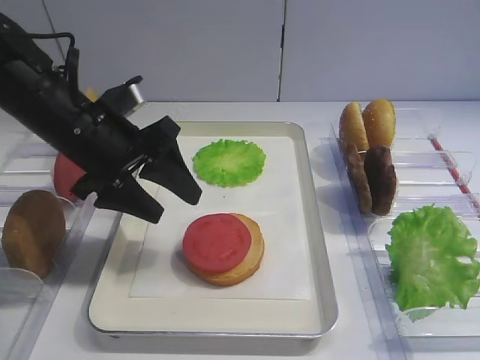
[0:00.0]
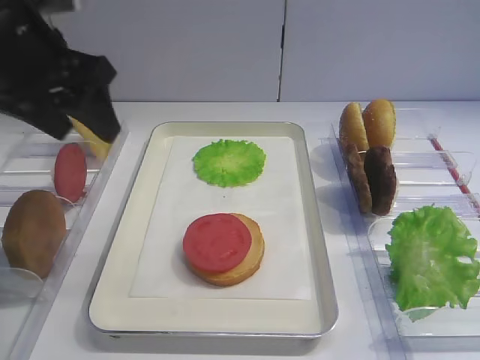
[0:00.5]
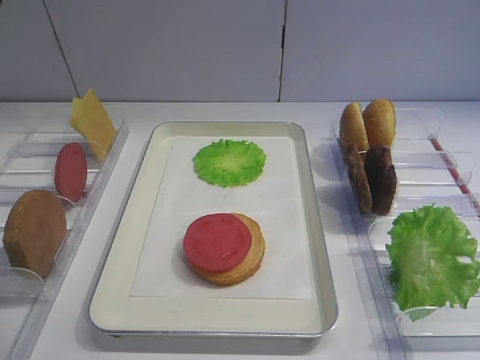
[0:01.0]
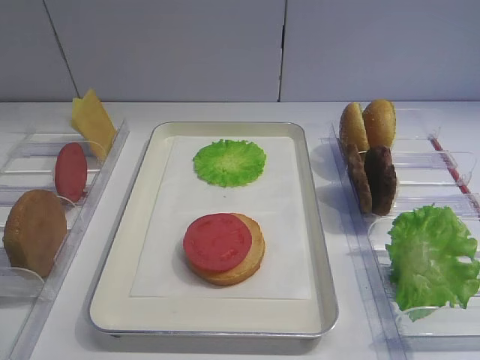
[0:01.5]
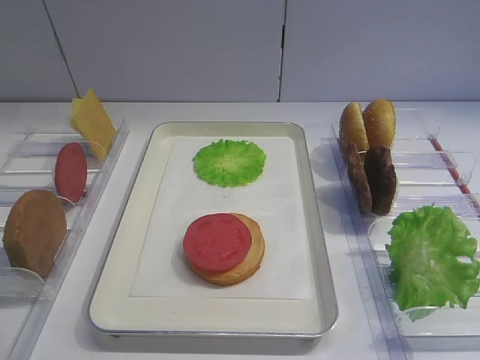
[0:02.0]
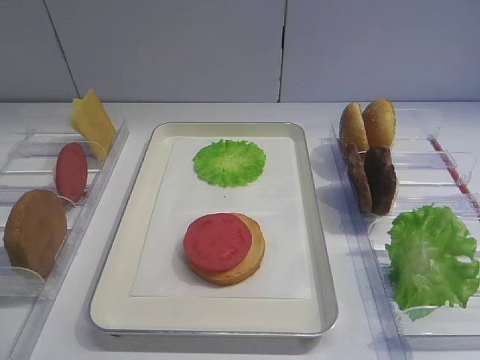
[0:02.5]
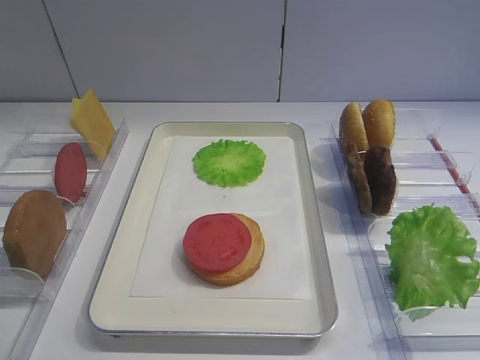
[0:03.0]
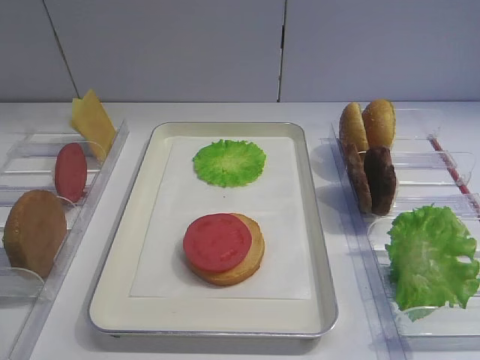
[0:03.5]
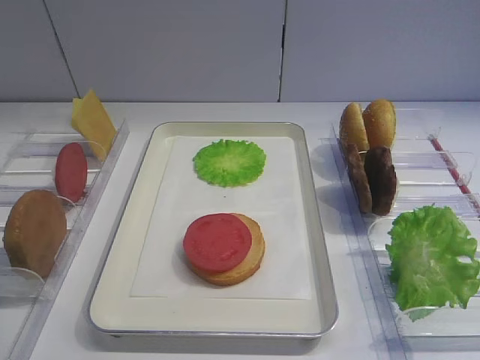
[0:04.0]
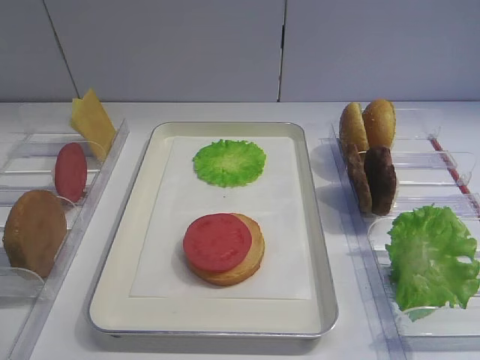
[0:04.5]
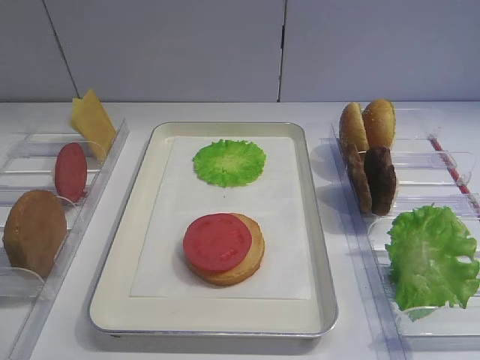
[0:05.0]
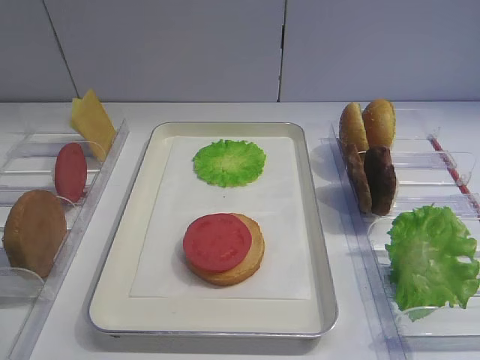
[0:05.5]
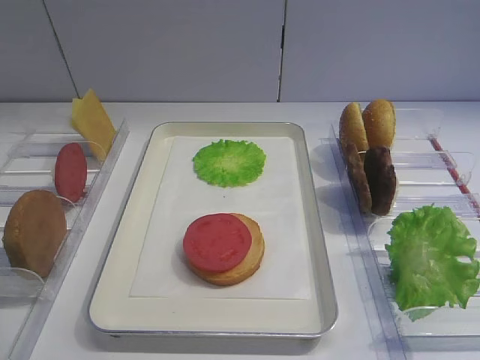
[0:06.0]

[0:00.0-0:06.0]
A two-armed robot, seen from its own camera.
0:00.0 to 0:02.0: The left gripper moves backward, upward and to the left, some 35 cm.

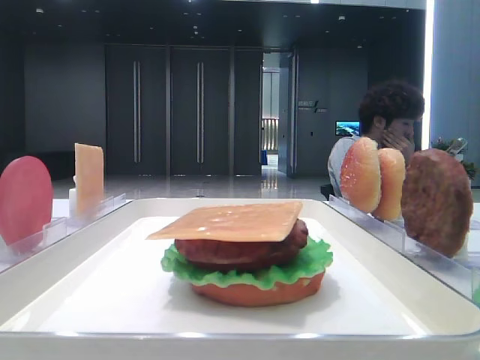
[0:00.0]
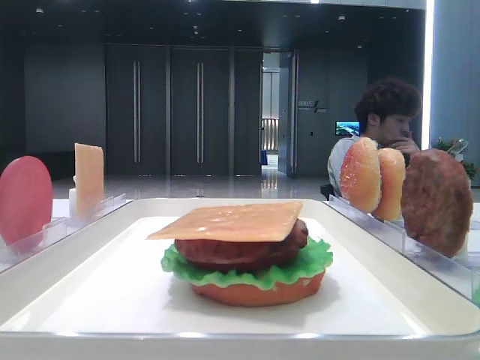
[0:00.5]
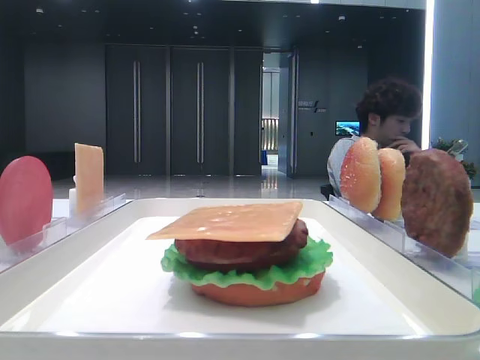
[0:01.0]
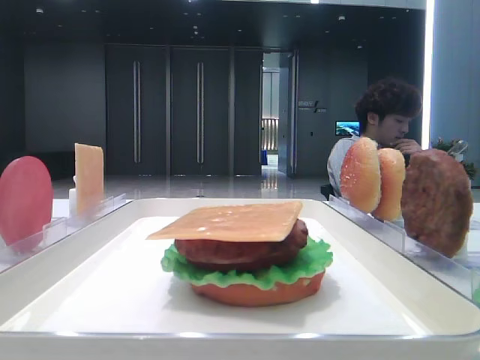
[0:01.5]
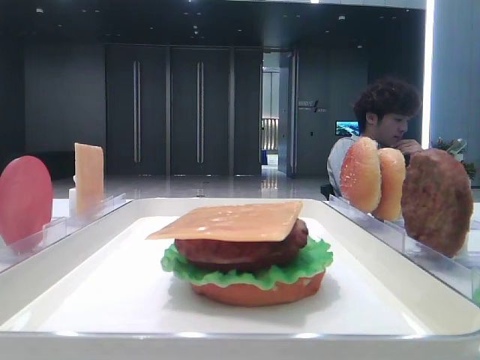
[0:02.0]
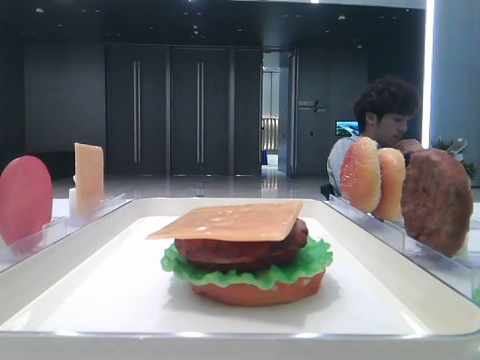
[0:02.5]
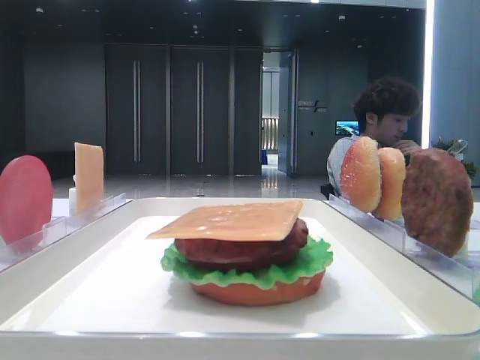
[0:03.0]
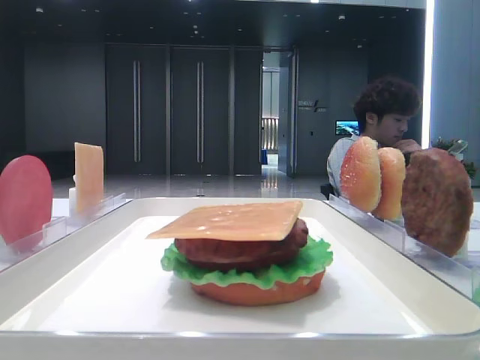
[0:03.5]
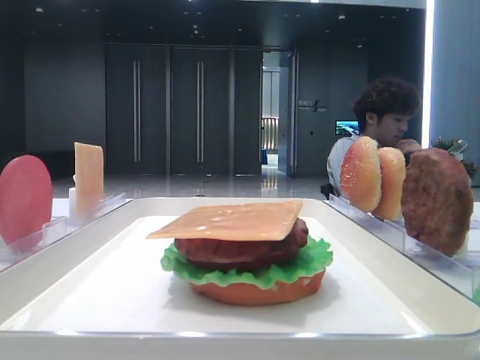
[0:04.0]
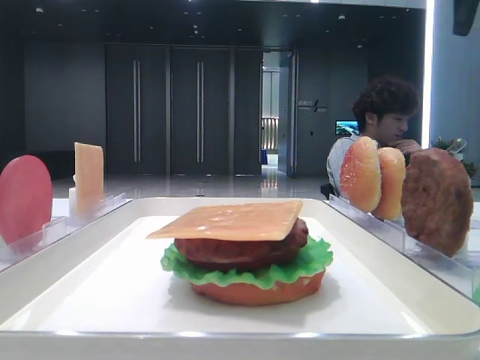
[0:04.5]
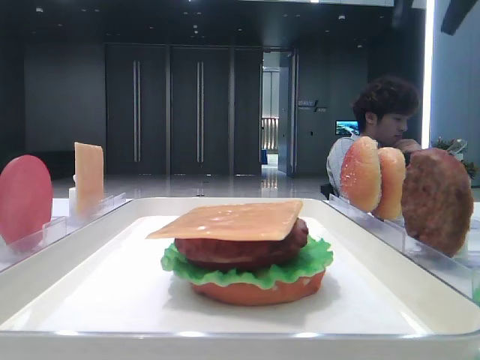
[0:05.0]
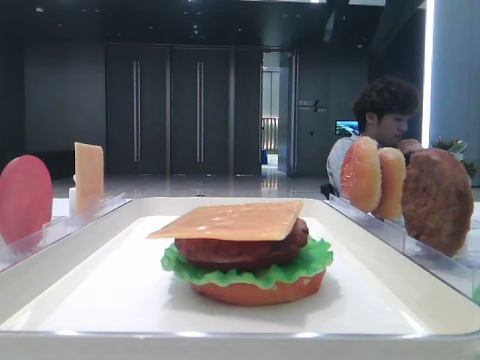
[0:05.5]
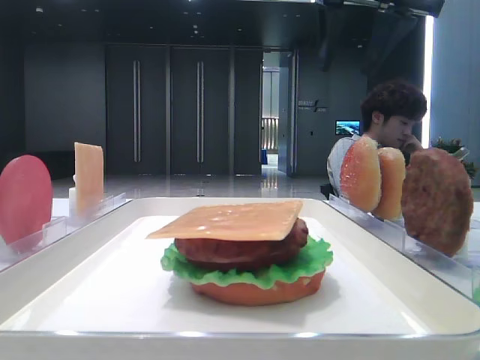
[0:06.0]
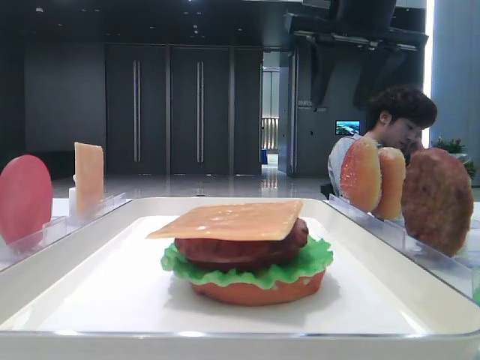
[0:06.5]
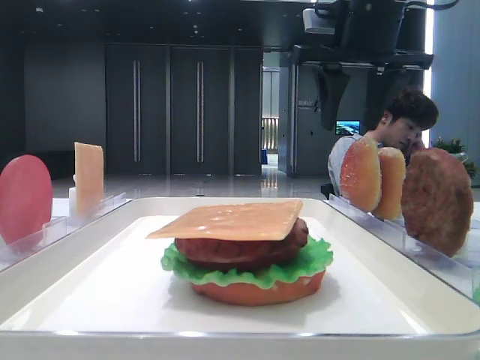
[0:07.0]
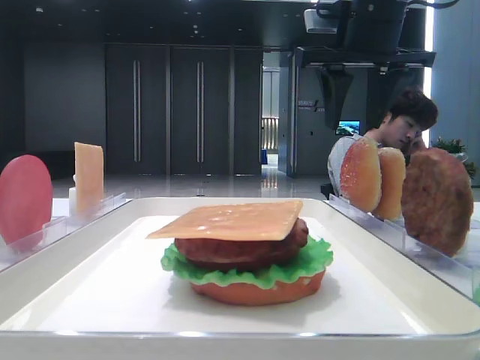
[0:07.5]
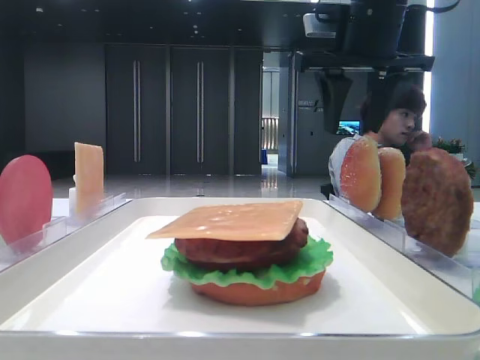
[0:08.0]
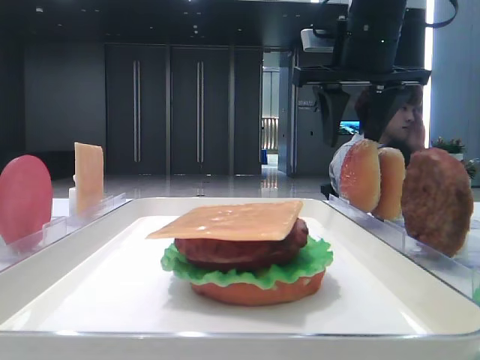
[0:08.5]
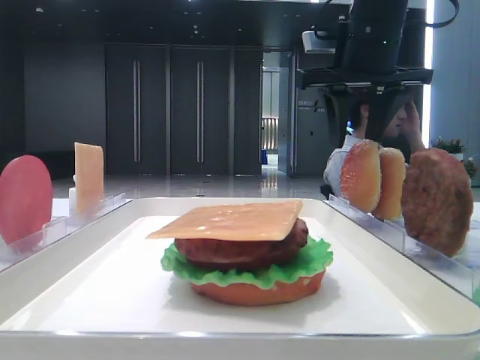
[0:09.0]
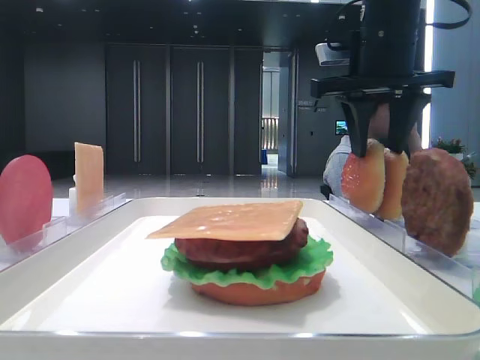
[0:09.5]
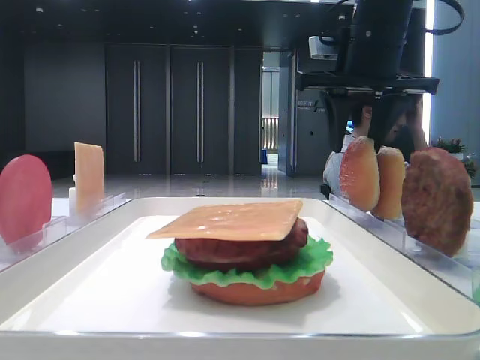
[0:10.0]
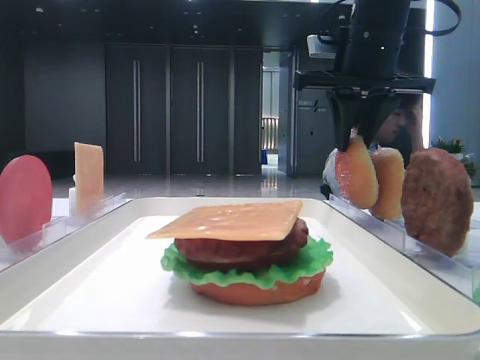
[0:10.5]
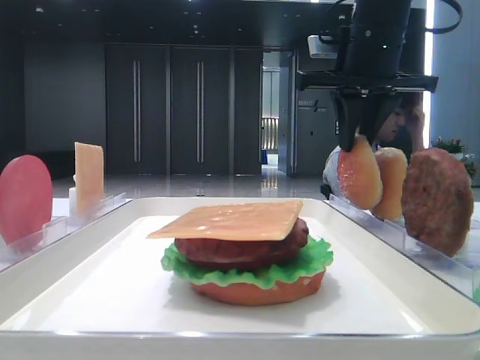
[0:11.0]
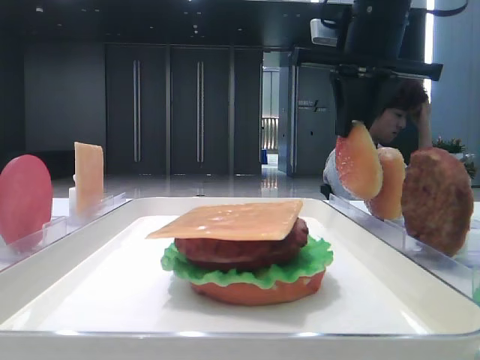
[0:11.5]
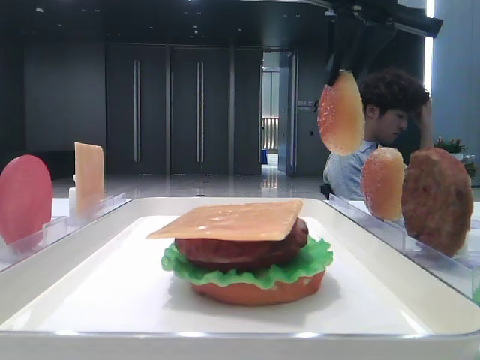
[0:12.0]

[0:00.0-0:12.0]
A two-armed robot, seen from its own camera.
Step, 0:00.0 to 0:11.0: Pick up the top bread slice with the right hand.
0:04.0 to 0:06.0: The right gripper is displaced to the left by approximately 15 cm.
0:06.0 to 0:08.0: The right gripper moves downward, some 5 cm.
0:08.0 to 0:10.0: The grippers move only a little.
0:10.0 to 0:12.0: The right gripper shifts some 5 cm upward, and closes its fingers.

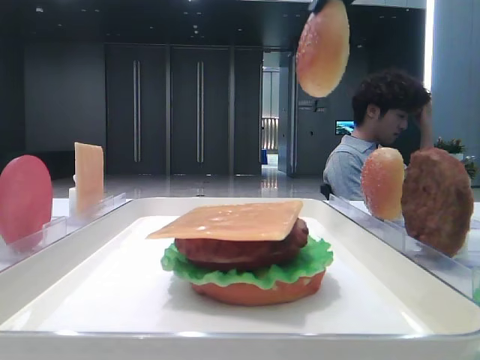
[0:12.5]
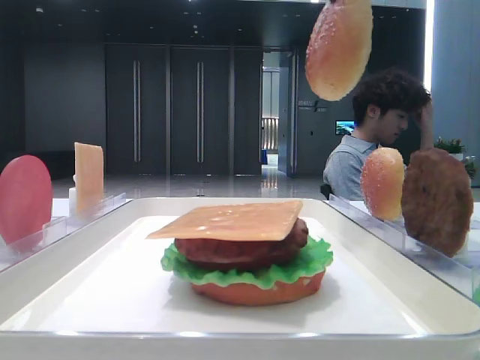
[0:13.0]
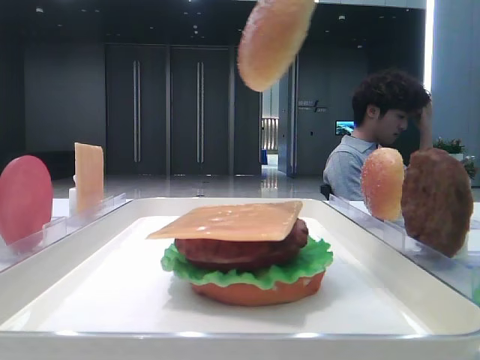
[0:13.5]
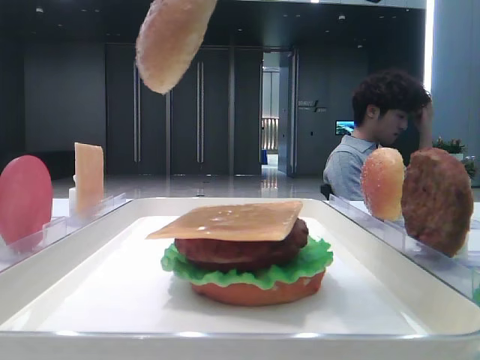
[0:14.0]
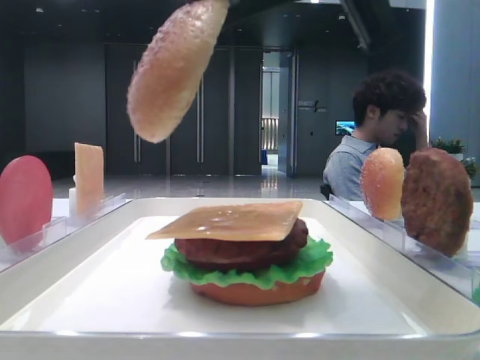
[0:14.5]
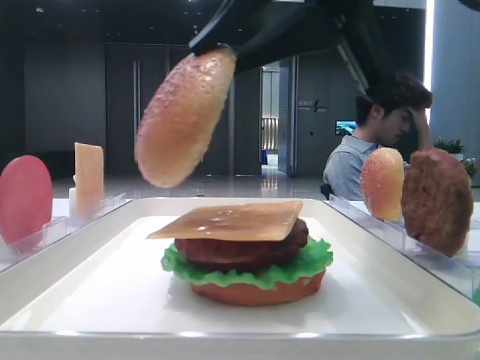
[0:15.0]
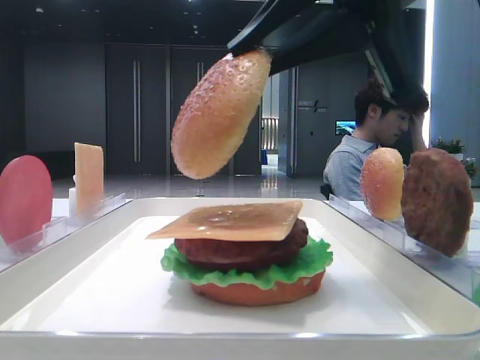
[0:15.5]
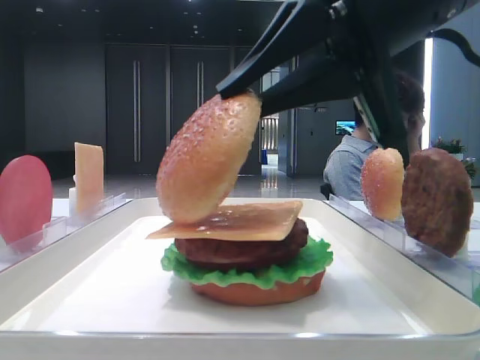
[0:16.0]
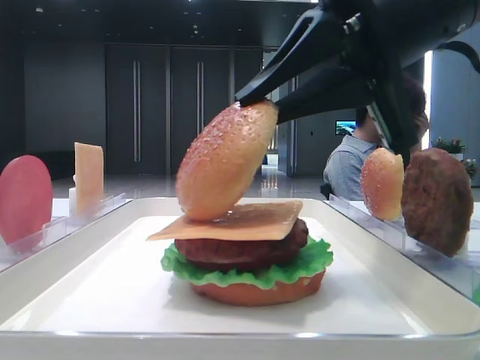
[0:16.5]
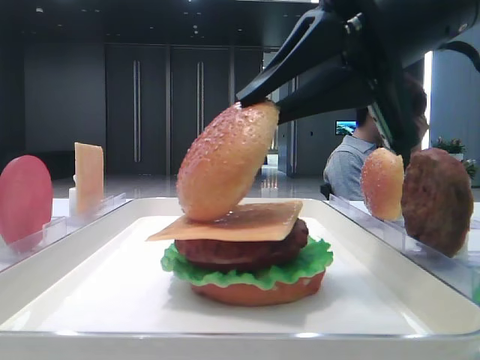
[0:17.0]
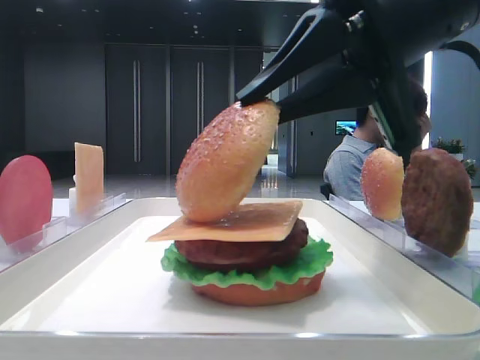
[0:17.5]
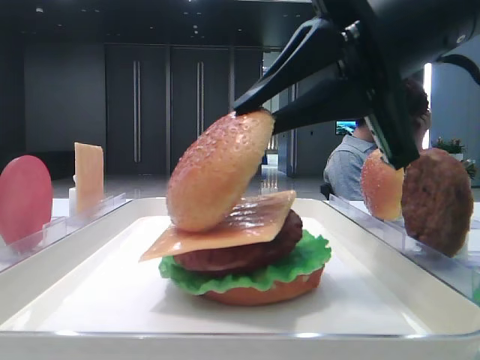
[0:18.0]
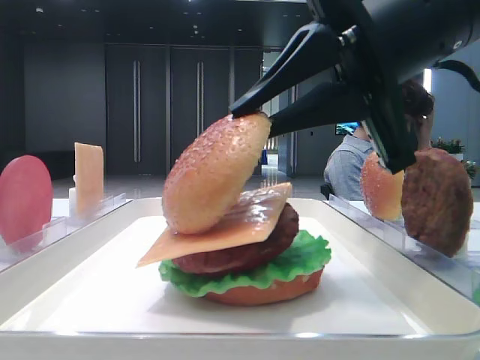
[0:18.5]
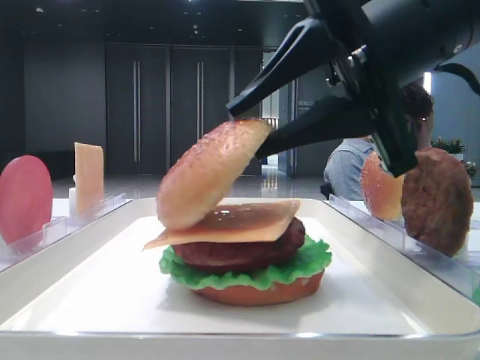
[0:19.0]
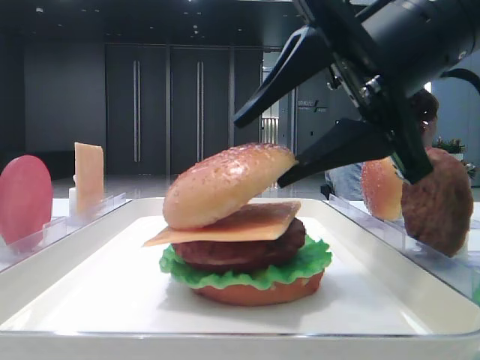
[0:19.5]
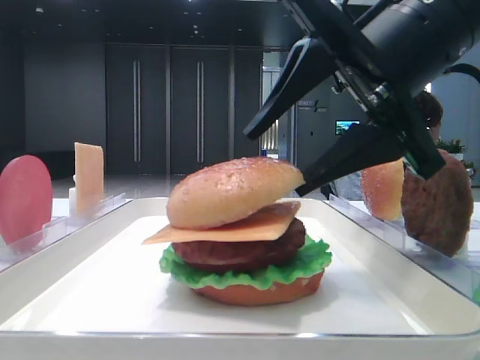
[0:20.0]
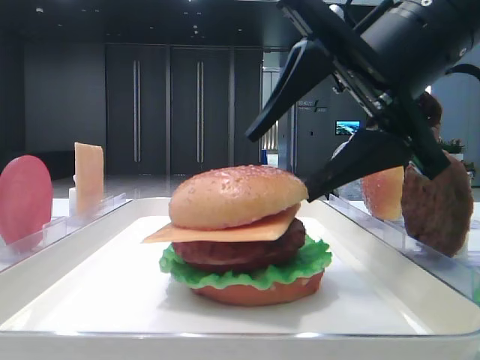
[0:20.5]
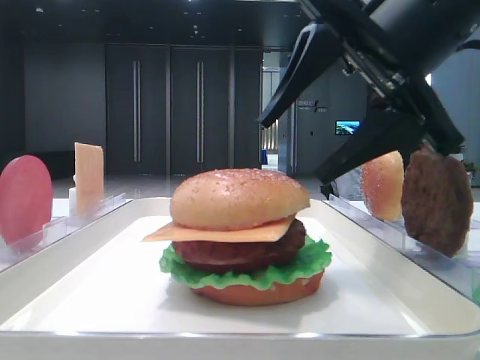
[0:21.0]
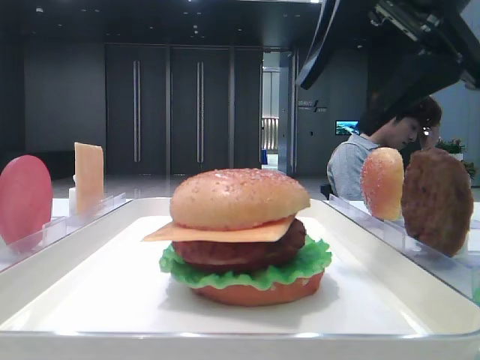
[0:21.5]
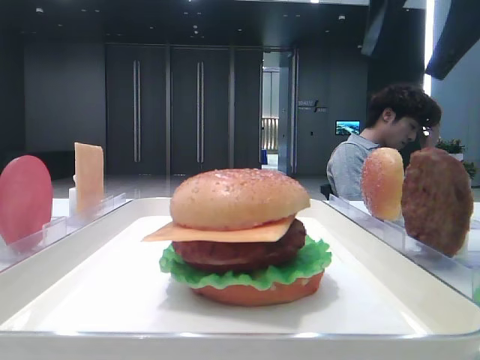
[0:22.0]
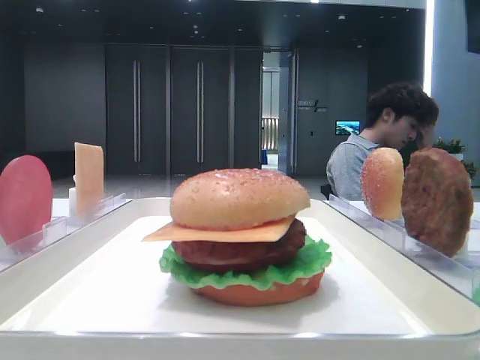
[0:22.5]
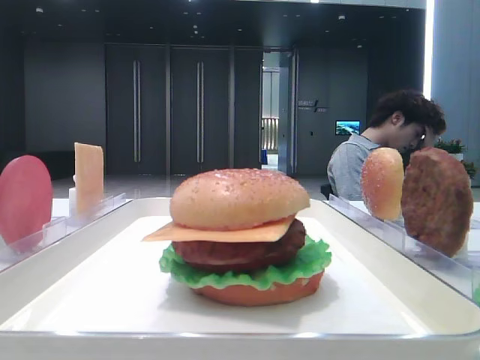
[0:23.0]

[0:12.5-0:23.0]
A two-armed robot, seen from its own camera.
Step, 0:12.5 to 0:20.5: Place the top bread slice on the cheese with the right hand.
0:12.5 to 0:14.5: The right gripper heads backward and downward, covering approximately 15 cm.
0:14.5 to 0:16.5: The right gripper goes roughly 5 cm downward.
0:16.5 to 0:19.0: The right gripper opens up.
0:19.0 to 0:21.0: The right gripper opens up.
0:21.0 to 0:23.0: The right gripper moves to the right and upward, roughly 20 cm.
